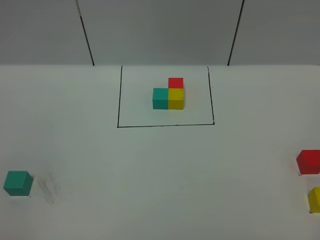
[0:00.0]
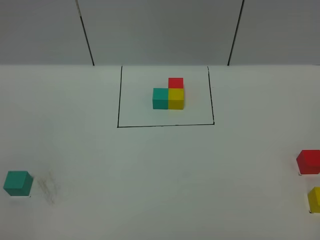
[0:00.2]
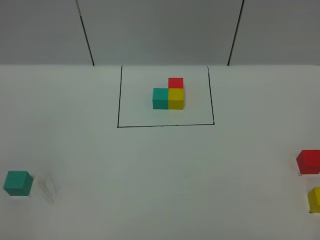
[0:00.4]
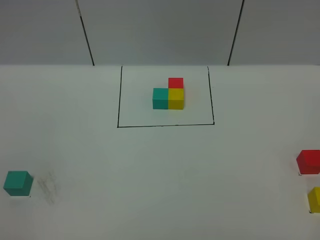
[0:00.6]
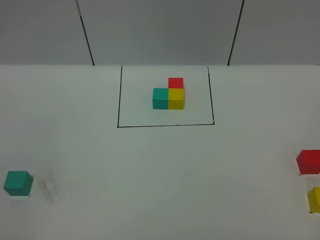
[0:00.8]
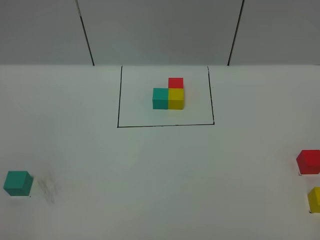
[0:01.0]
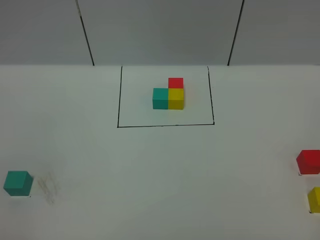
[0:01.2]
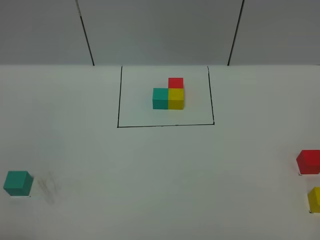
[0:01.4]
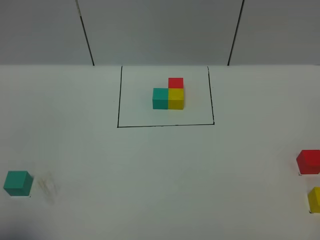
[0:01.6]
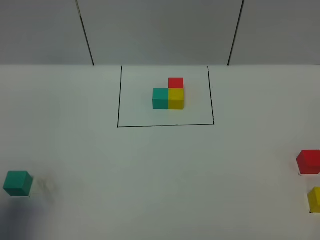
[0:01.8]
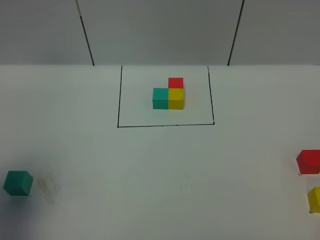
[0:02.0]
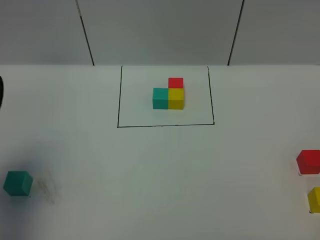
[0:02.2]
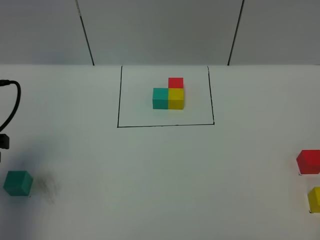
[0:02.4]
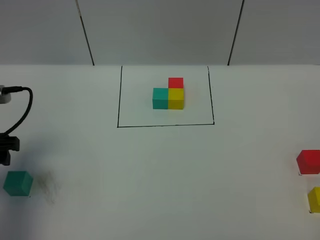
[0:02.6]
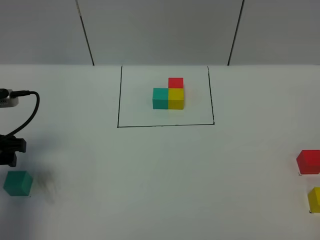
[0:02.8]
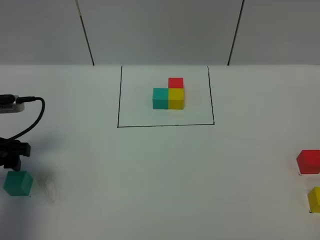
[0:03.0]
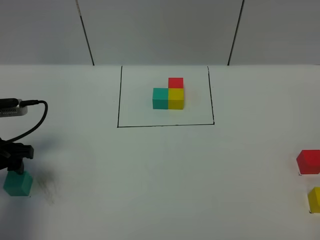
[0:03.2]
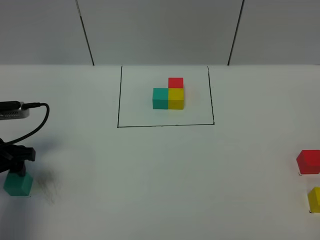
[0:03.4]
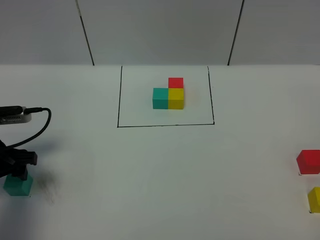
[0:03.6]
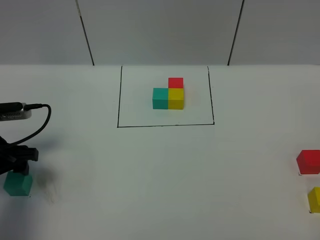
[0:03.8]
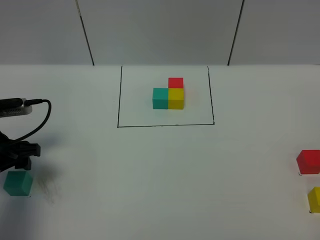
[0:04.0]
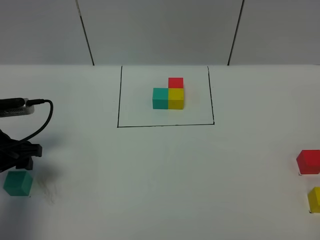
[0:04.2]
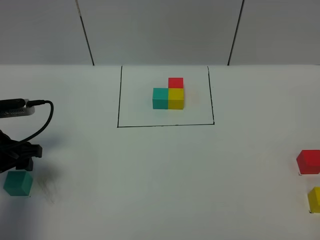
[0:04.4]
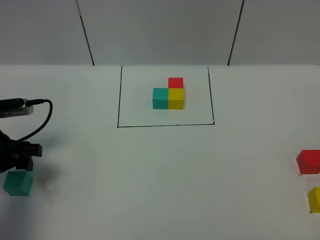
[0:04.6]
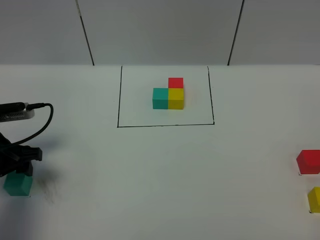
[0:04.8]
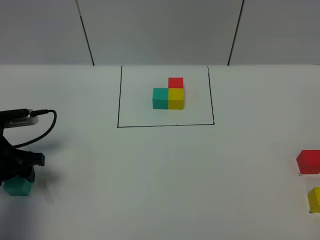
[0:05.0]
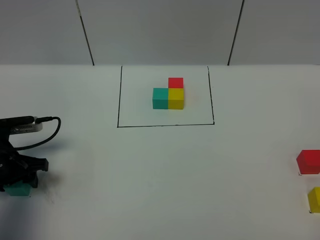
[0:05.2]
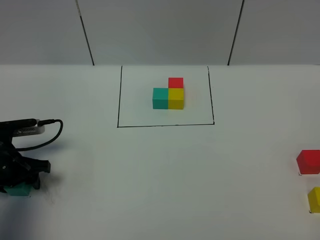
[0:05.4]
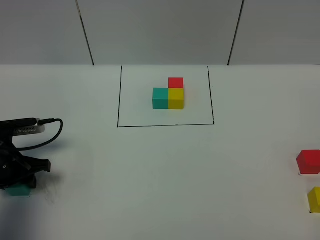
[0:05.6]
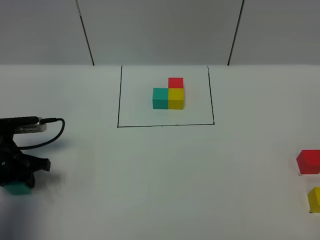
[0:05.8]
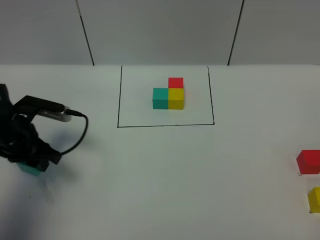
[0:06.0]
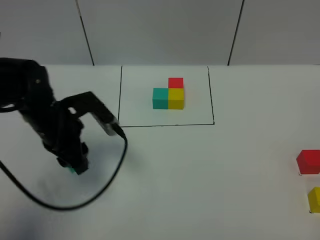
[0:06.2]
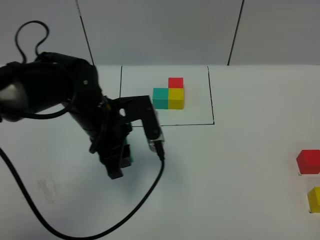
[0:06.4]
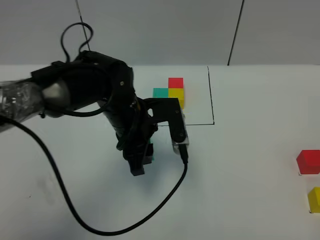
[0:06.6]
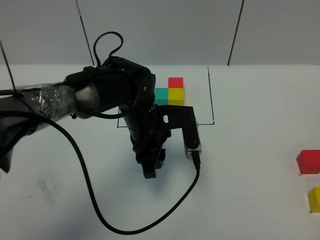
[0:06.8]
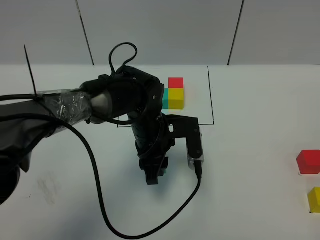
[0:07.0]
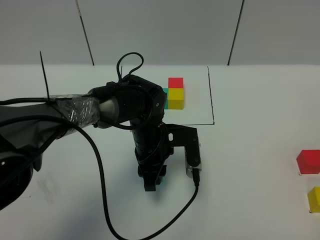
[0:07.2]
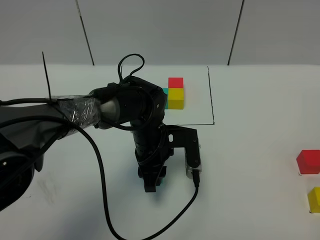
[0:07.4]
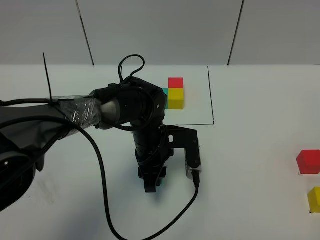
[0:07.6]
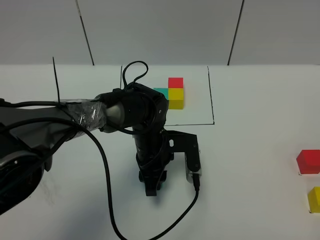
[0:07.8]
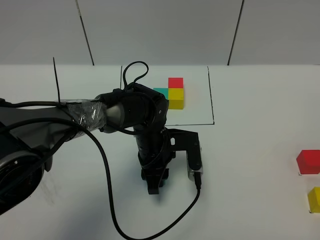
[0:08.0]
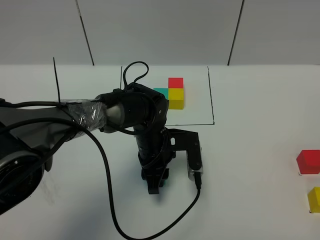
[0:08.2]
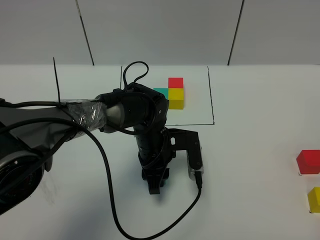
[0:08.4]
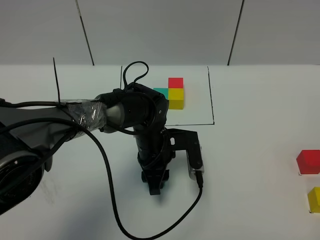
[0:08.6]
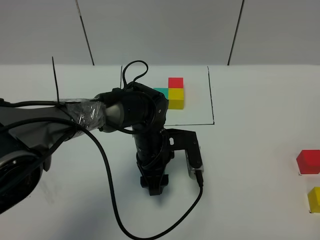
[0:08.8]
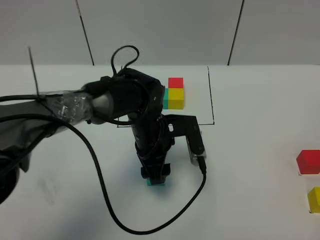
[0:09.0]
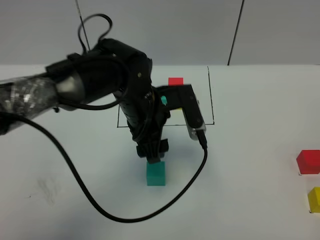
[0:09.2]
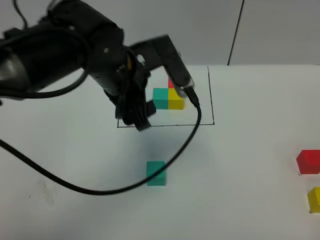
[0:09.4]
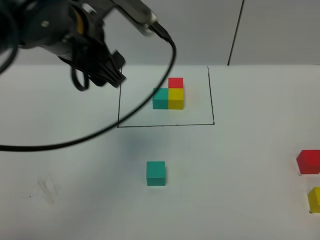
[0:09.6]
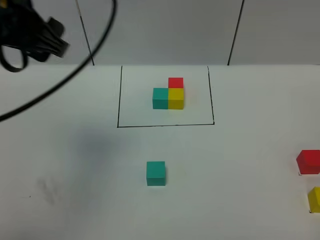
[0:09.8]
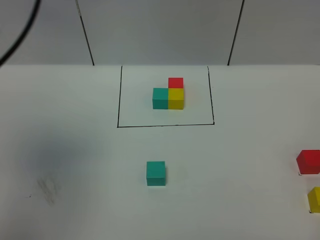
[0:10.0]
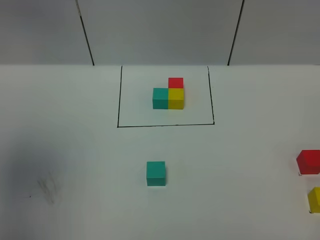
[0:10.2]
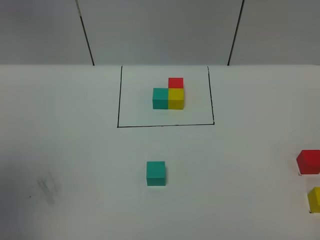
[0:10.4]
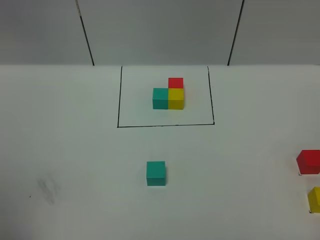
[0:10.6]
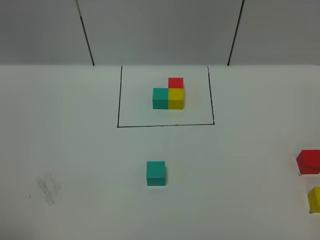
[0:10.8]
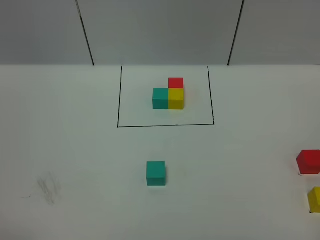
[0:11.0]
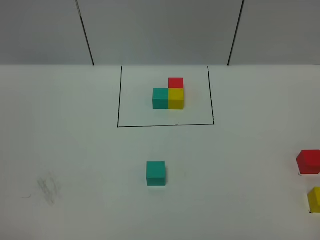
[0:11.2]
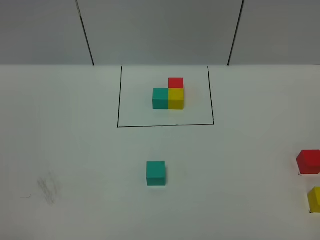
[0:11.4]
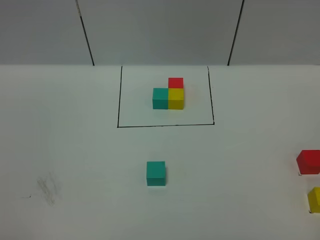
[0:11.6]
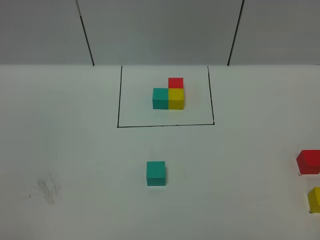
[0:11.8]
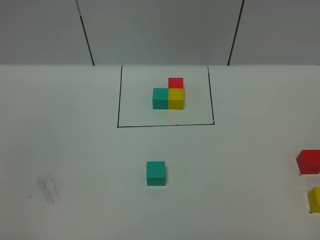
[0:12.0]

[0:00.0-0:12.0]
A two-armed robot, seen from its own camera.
Task of the whole recording: According to the building block template in front, assemble the scattered blocks together.
Step, 0:02.2 to 0:10.0: Put the green cube in the center of the table.
0:01.6 to 0:03.0: The left gripper goes approximately 25 cm forward and downward.
0:03.0 to 0:04.4: The grippers stay close to where they were, moving slightly.
0:04.4 to 0:06.0: The left gripper shifts by roughly 5 cm, and closes.
0:06.0 to 0:07.6: The left gripper travels to the right by approximately 25 cm.
0:07.6 to 0:09.0: The left gripper opens up.
0:09.0 to 0:10.4: The left gripper travels upward, to the left and backward by approximately 50 cm.
0:10.4 to 0:12.0: The left gripper goes approximately 25 cm downward and backward.

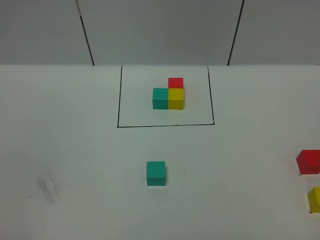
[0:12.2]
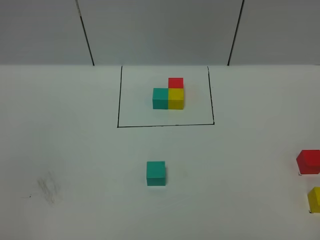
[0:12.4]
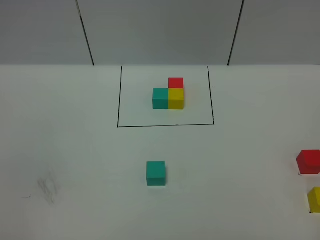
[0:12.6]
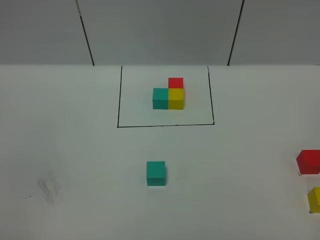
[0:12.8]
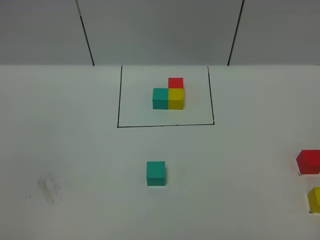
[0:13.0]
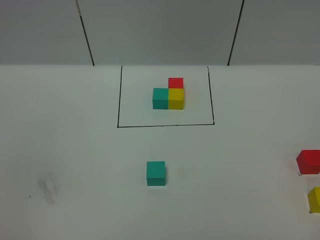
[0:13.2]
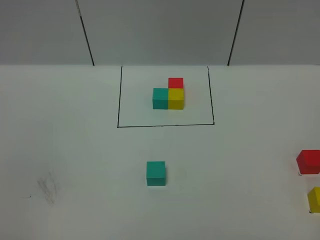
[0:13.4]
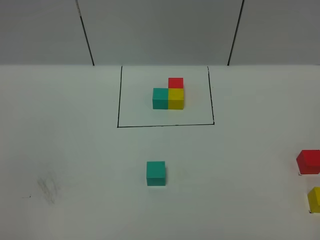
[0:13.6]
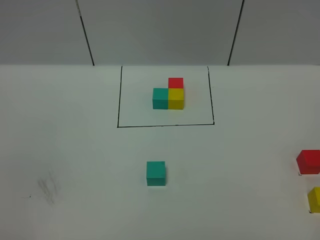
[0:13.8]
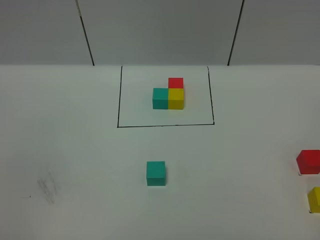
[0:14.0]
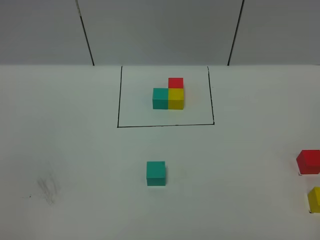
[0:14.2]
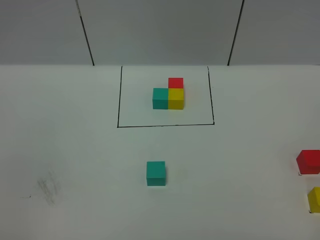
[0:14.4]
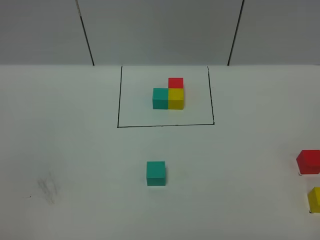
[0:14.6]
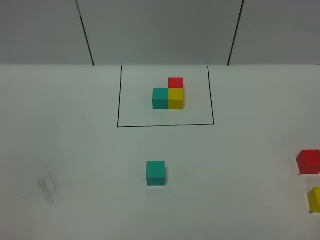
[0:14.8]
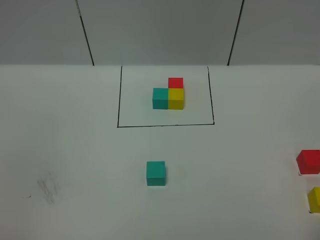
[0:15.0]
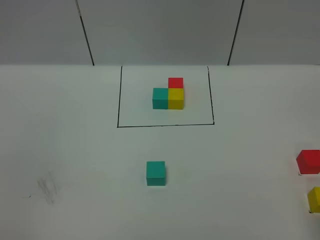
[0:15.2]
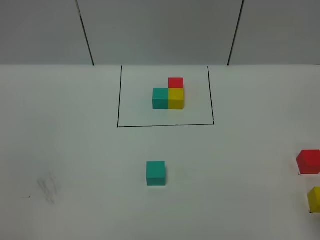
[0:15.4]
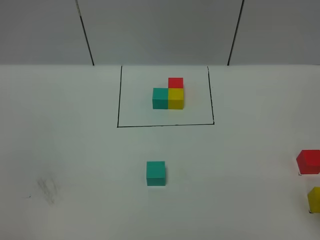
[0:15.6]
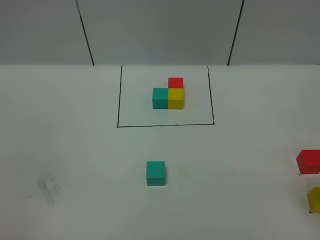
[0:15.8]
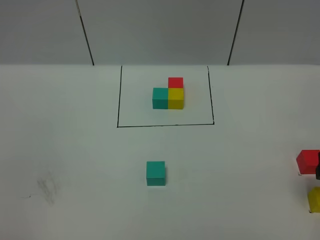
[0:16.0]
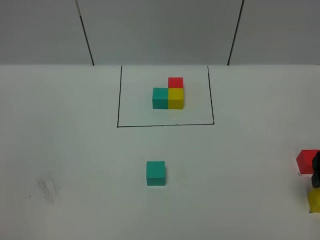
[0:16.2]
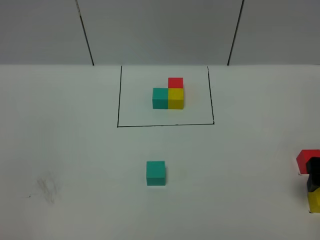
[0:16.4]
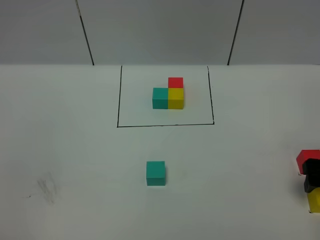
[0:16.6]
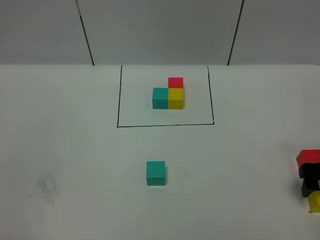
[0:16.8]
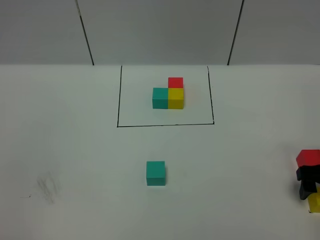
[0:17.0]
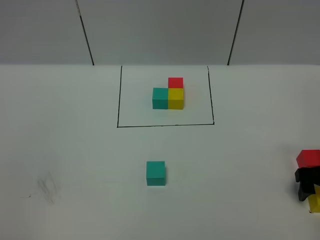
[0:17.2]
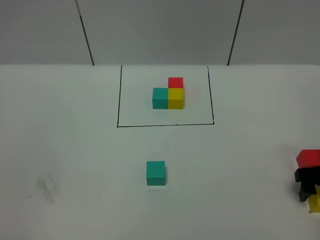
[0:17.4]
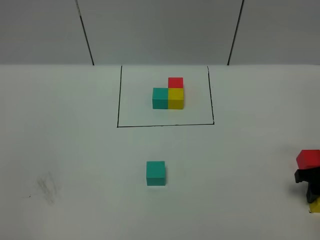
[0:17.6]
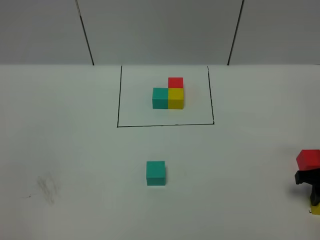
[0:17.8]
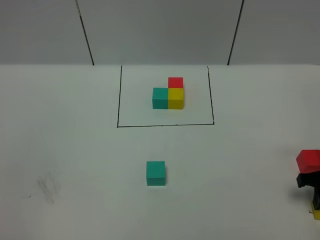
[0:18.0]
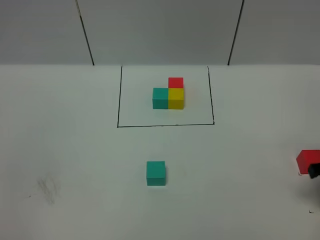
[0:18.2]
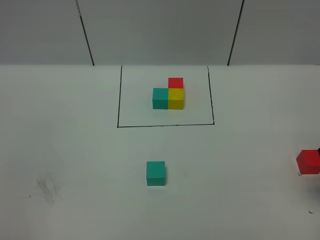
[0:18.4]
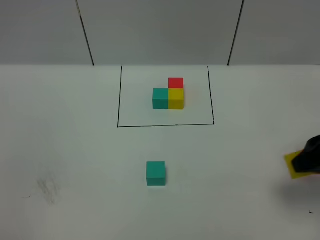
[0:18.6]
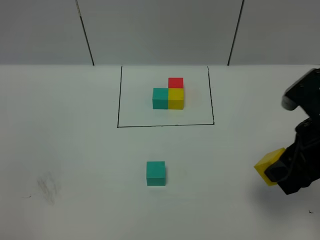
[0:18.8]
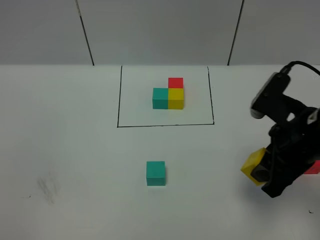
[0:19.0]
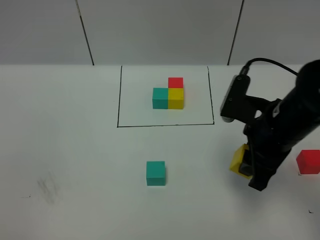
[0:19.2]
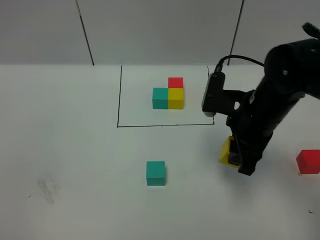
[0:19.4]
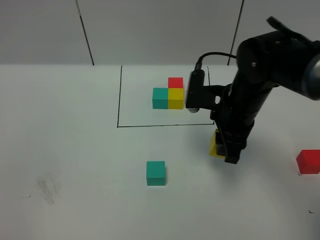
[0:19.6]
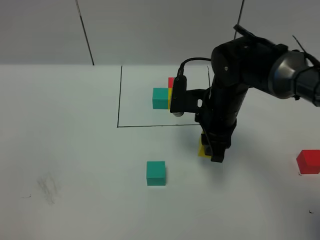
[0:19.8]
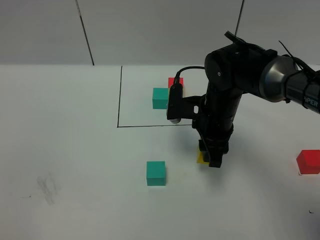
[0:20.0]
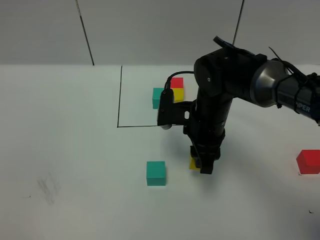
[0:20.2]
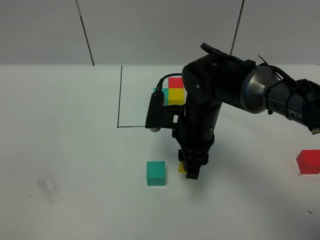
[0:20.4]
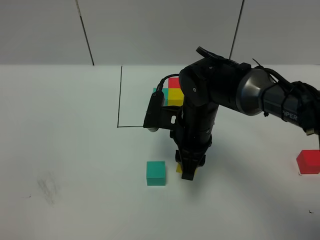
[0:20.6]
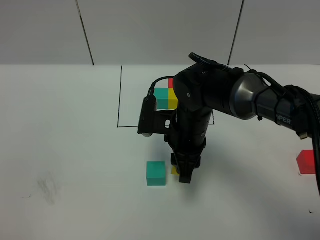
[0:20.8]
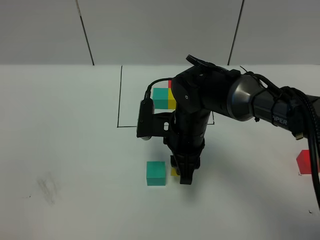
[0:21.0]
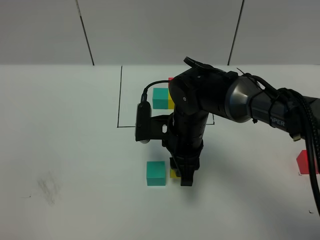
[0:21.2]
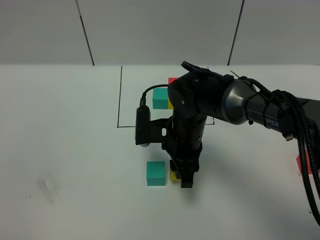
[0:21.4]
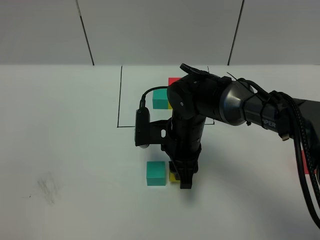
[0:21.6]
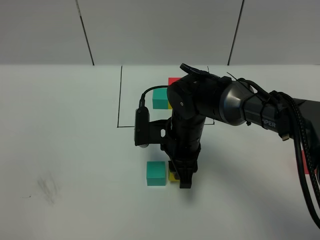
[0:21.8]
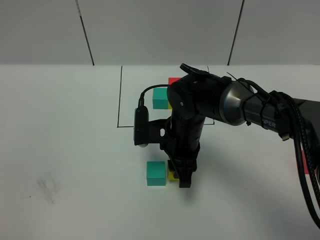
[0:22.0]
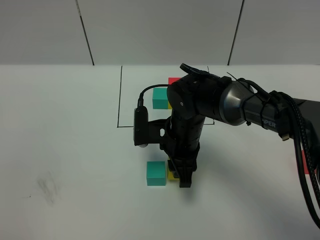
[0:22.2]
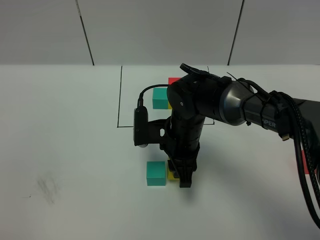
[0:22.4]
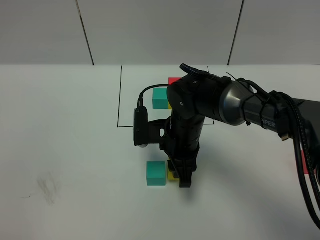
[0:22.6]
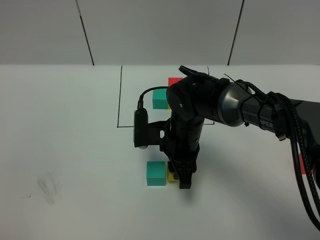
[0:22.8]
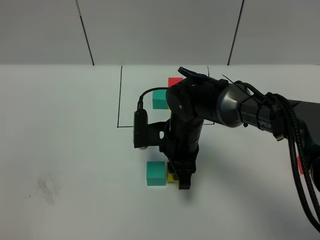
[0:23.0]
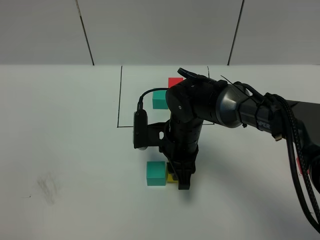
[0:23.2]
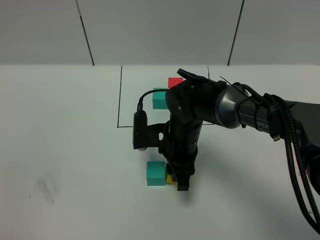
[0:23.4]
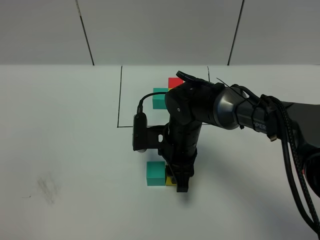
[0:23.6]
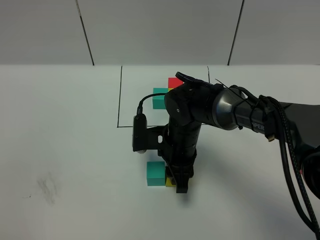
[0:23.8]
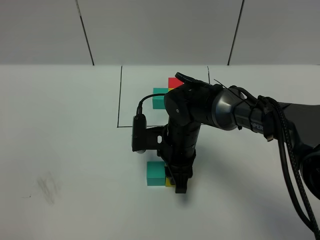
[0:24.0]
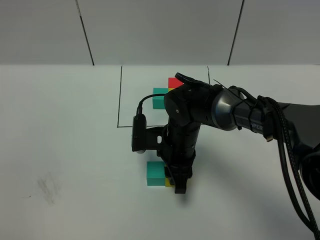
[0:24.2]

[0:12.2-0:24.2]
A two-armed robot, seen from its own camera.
Task of the whole recording: According to the building block template in front, assemble the scattered blocks together.
0:15.2 to 0:16.6: The right gripper is displaced downward and forward by roughly 20 cm.
0:16.6 to 0:18.2: The right gripper closes its fingers.
0:18.2 to 0:19.8: The right gripper goes about 25 cm to the left.
0:19.8 to 0:21.2: The right gripper travels to the left by some 5 cm.
0:21.2 to 0:24.2: The grippers stay close to where they were, moving slightly.
